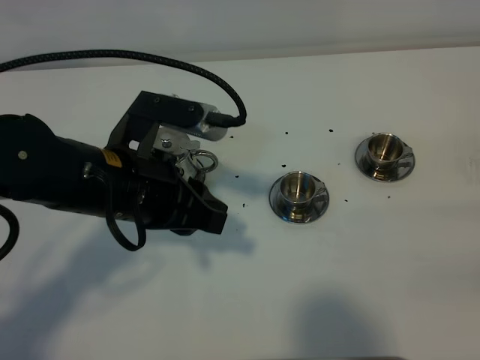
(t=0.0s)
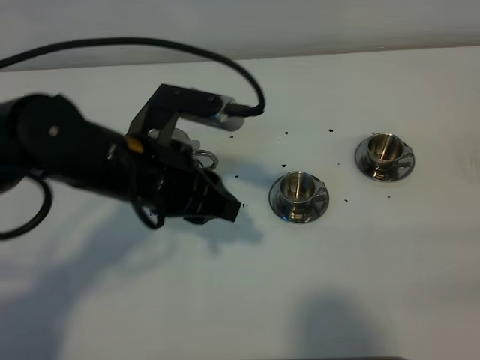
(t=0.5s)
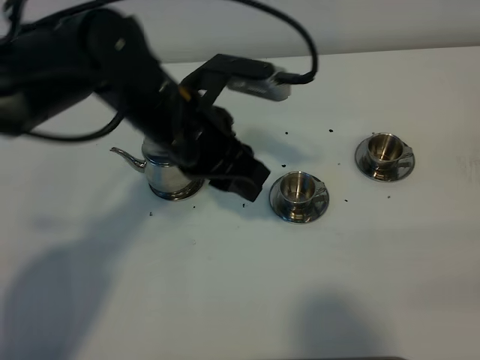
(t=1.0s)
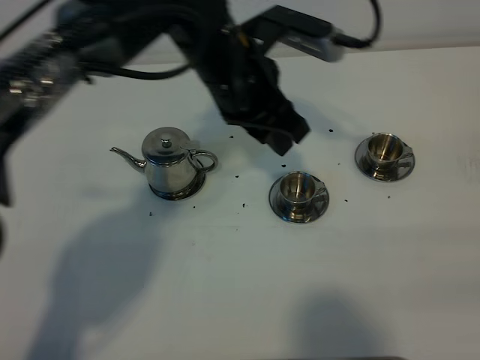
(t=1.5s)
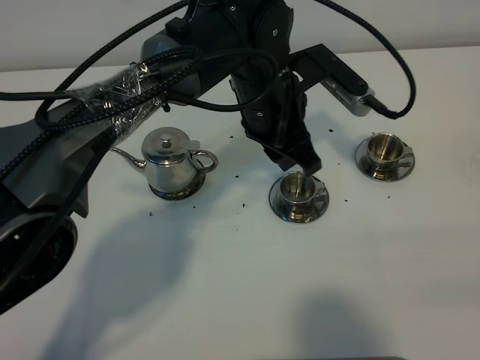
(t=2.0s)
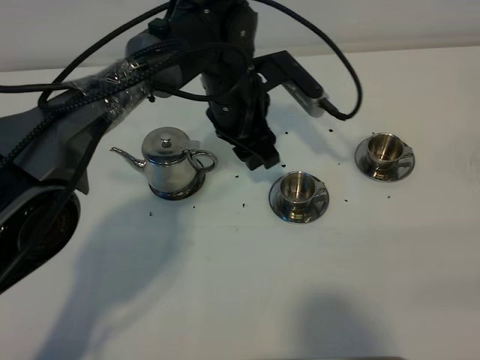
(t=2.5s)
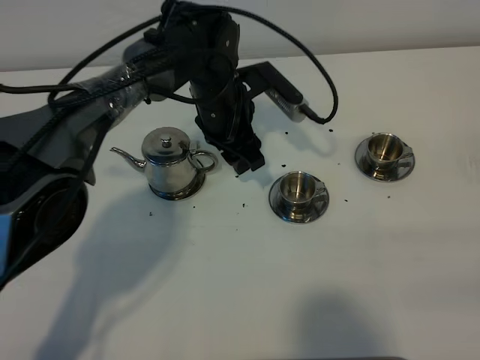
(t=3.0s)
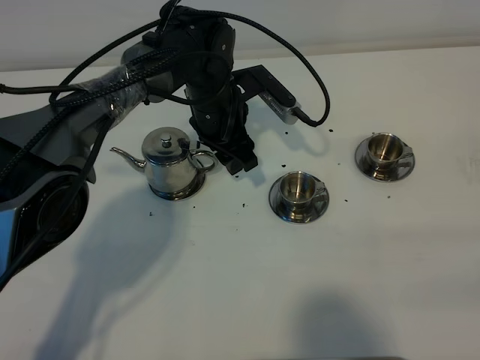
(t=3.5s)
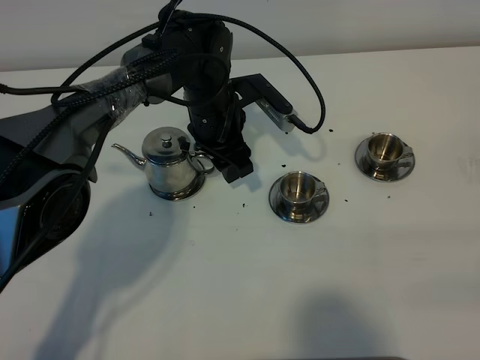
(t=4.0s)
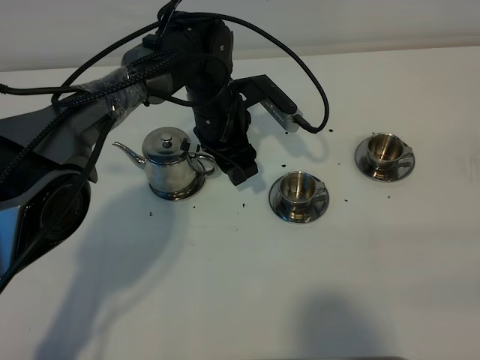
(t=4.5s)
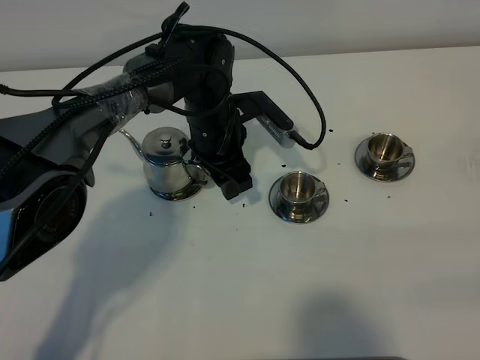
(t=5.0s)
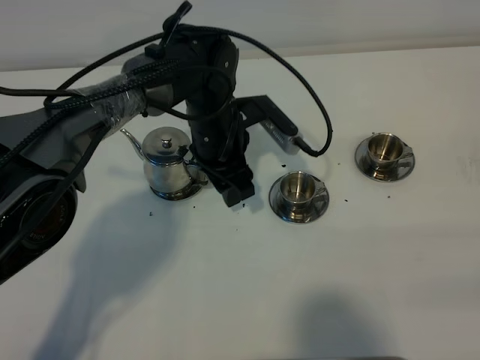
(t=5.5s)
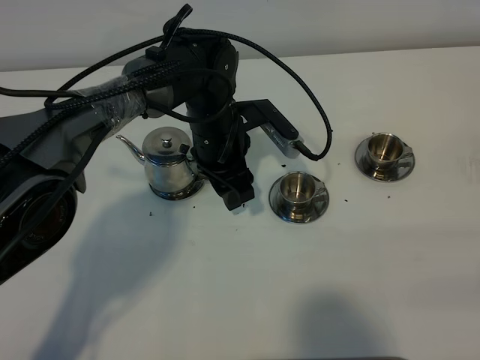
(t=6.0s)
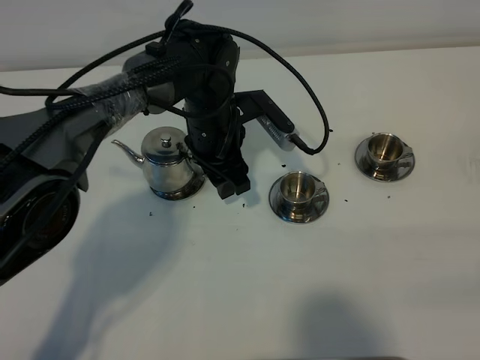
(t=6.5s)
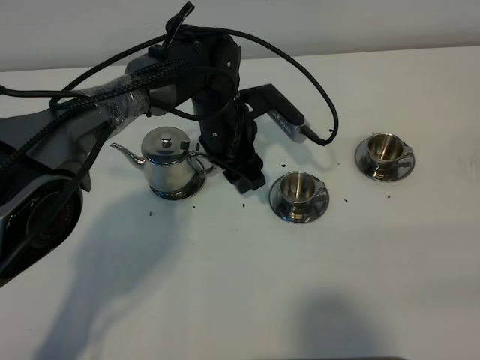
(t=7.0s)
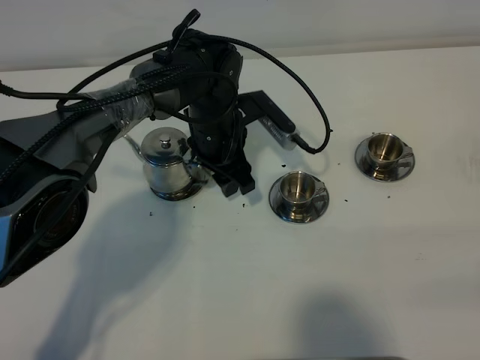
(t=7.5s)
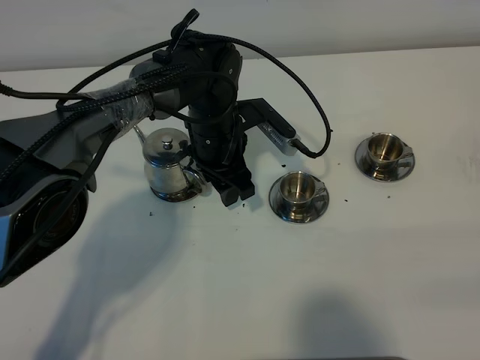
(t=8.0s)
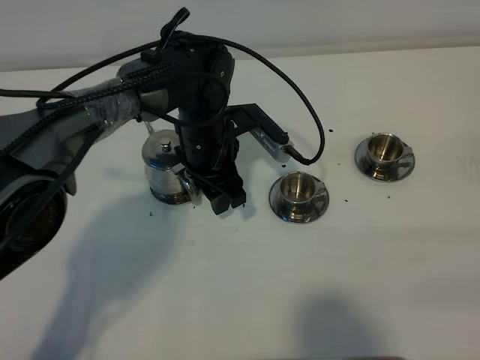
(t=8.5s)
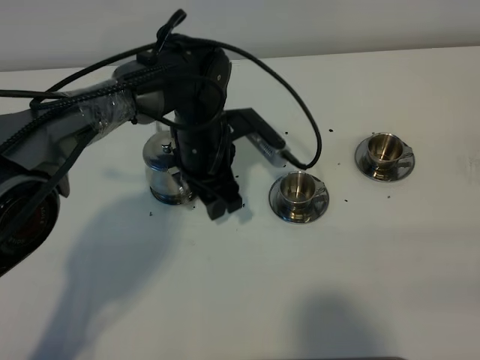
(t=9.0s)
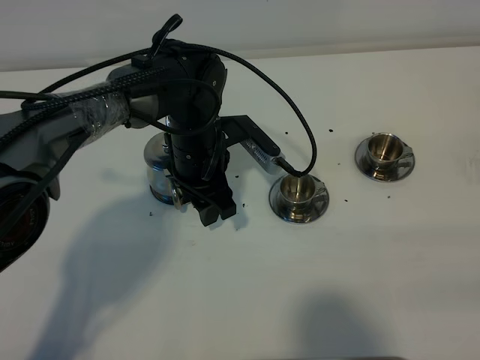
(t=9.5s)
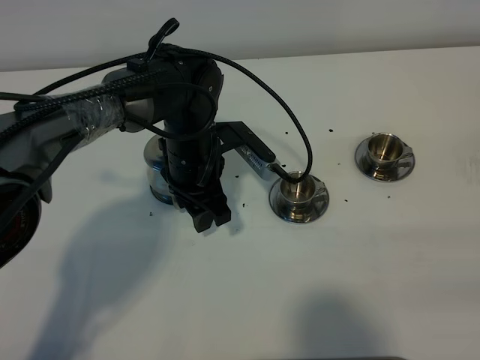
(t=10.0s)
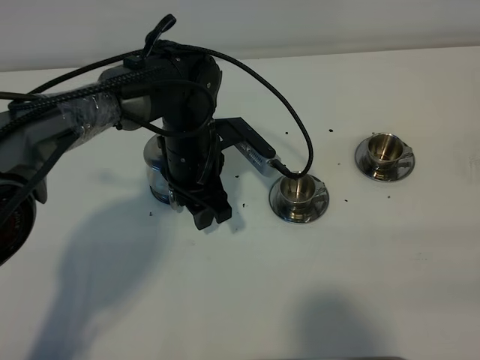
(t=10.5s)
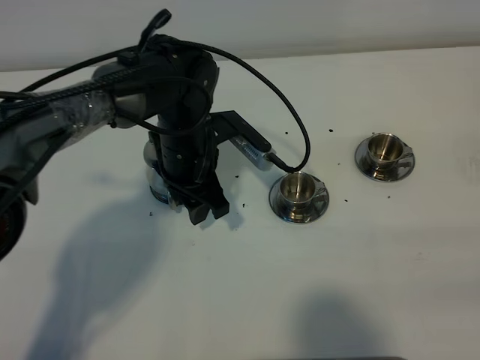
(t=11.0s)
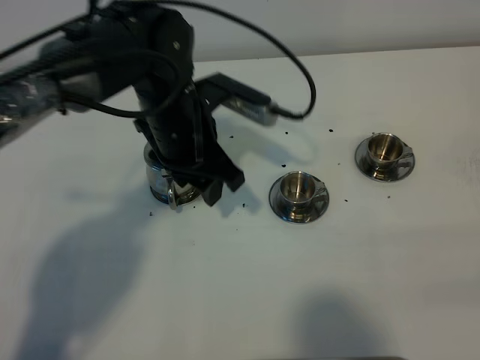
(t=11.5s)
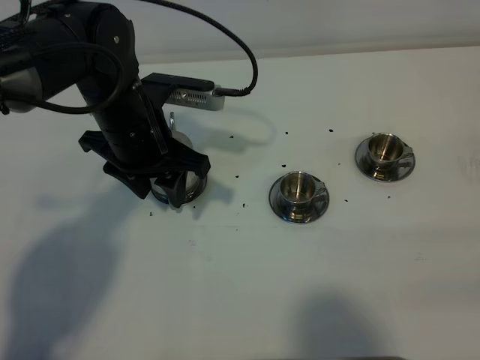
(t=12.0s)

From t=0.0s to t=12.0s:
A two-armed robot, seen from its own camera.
Task of the whole recording: grasp the stainless steel teapot and pour the tea into the two stainless steel teacups one by one, put the stainless steel teapot back in its original place.
From t=0.0s to t=2.0s: The left gripper goes about 20 cm to the right and forward.
From t=2.0s to t=4.0s: The left gripper moves downward, to the left and forward, approximately 10 cm, and opens its fingers.
From t=4.0s to t=8.0s: The grippers make only small movements.
From t=8.0s to t=10.0s: The grippers stay close to where they were, moving slightly.
From t=10.0s to t=12.0s: The left gripper travels upward and to the left by about 10 cm.

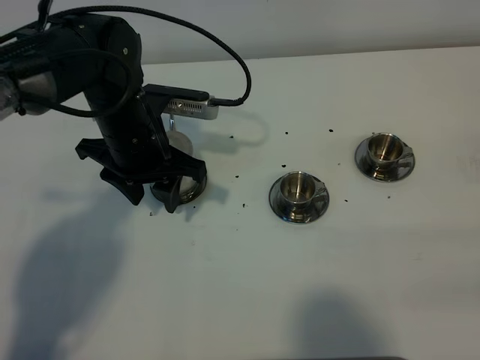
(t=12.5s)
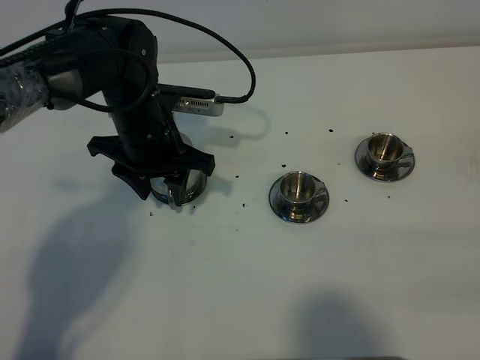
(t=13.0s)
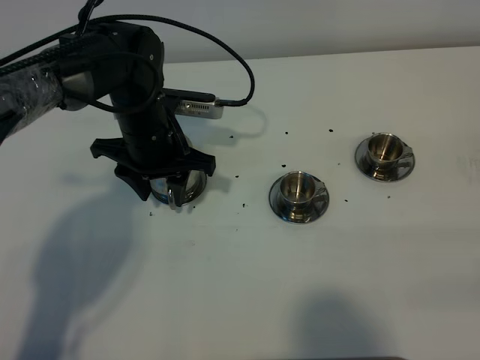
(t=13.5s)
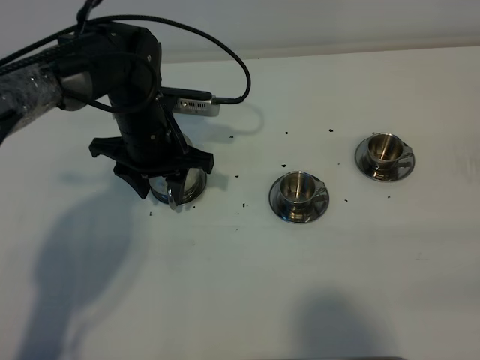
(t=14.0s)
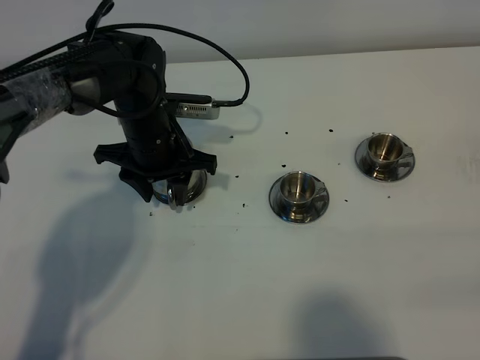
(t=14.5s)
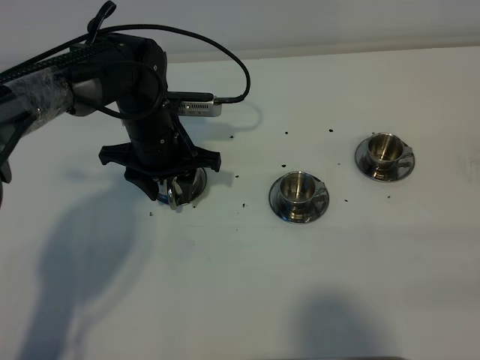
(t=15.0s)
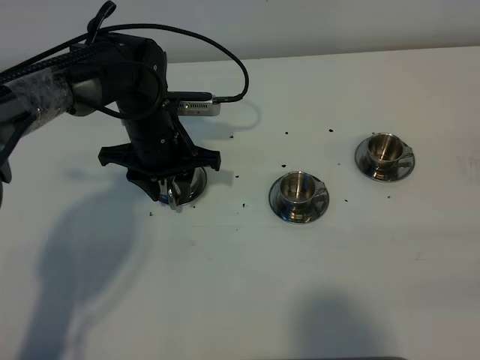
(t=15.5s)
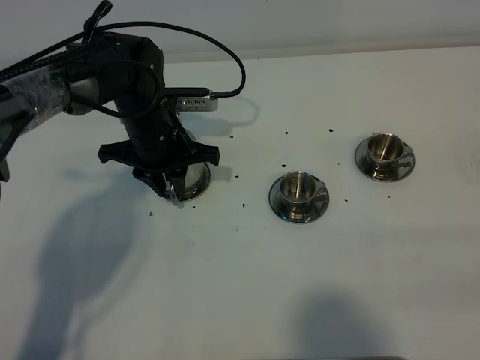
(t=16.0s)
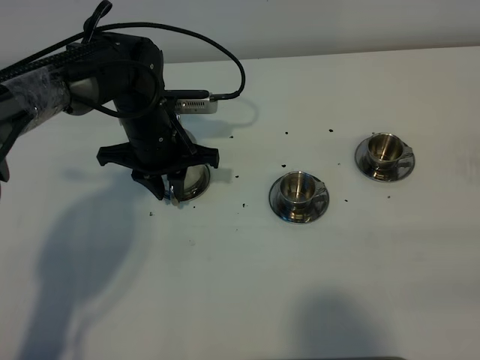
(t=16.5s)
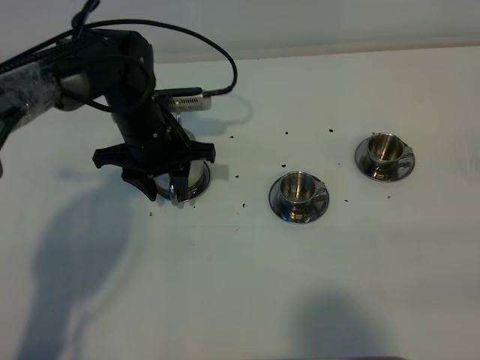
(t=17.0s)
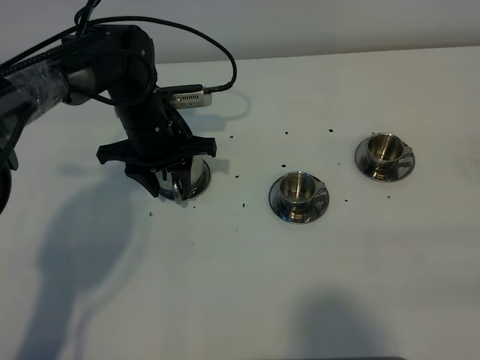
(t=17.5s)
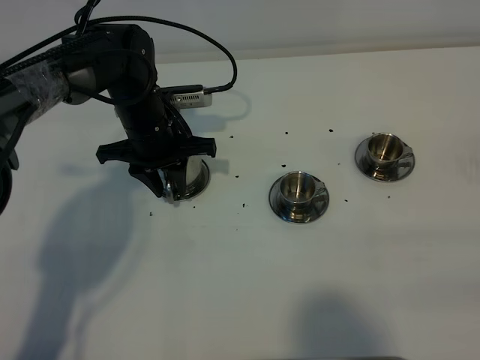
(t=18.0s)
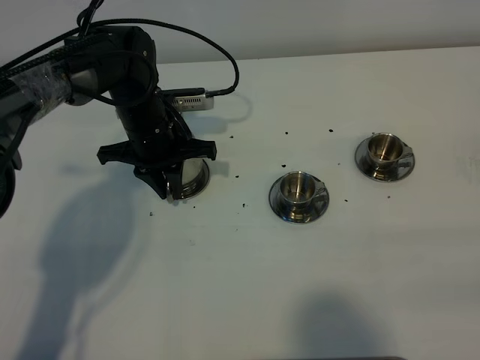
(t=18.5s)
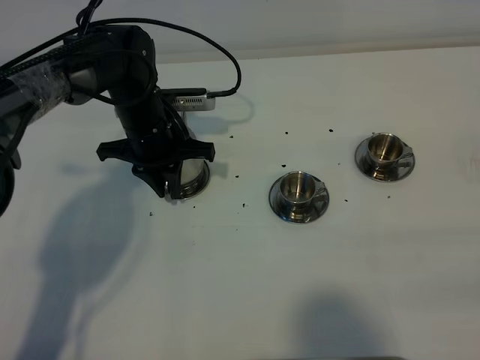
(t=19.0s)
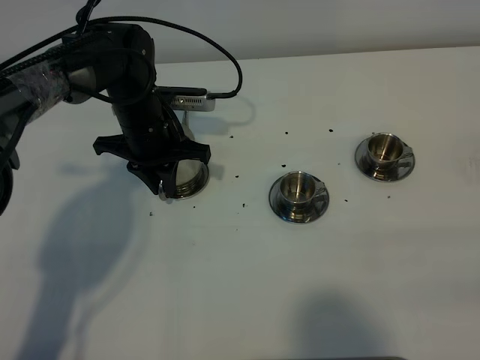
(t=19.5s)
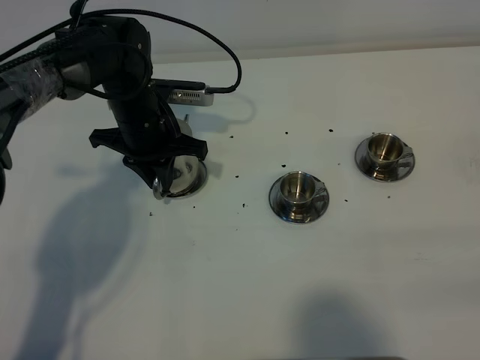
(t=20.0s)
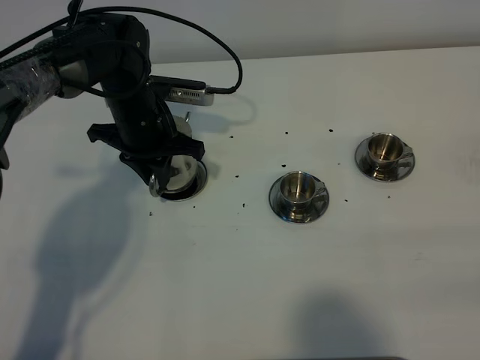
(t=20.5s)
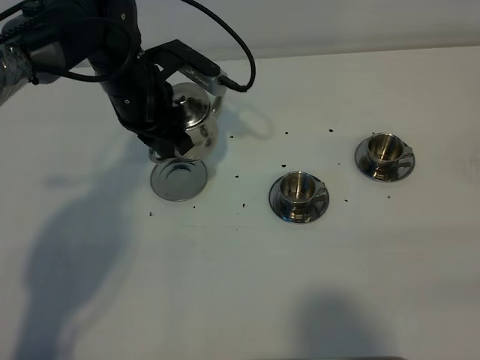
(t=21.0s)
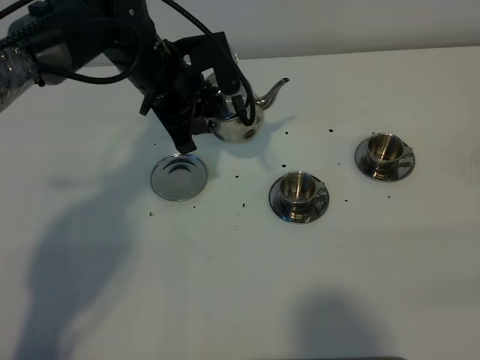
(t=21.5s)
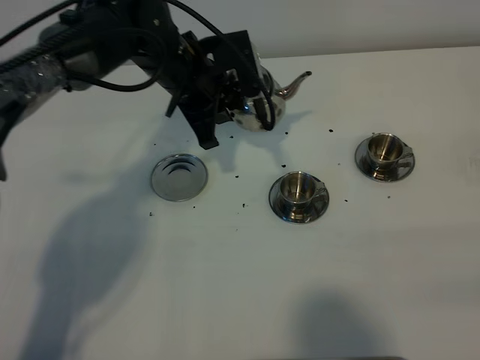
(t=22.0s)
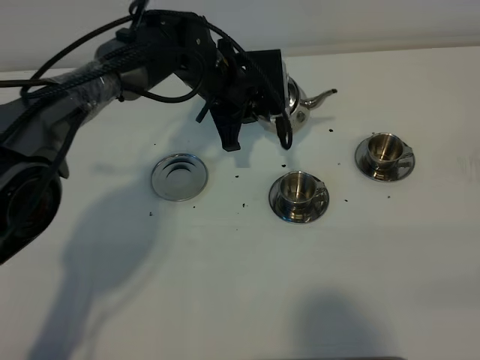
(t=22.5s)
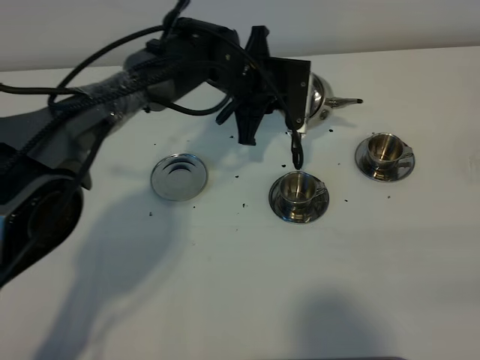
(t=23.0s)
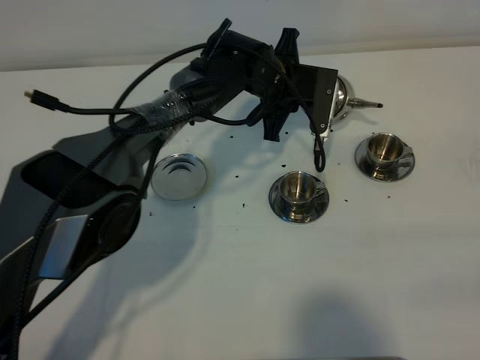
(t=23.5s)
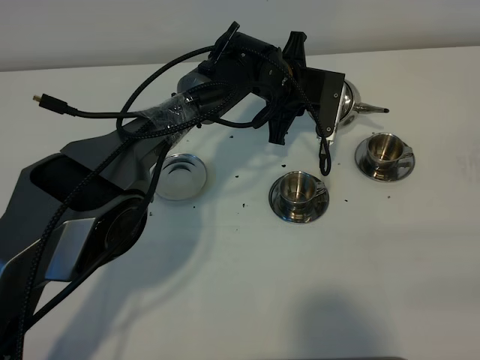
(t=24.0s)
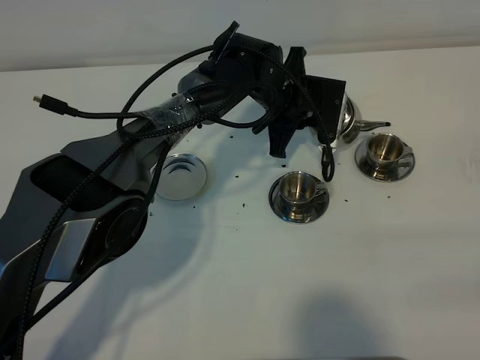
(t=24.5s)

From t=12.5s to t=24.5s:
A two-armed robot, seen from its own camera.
Task of the whole recording: grasp the stainless steel teapot and pour the tea into the two stainless steel teacups one by one, put the stainless steel teapot back in its original place.
Step, from t=12.5s to t=20.0s: Pick up the teapot with the left gripper.
From t=12.5s to t=14.5s: The left gripper shifts roughly 5 cm downward.
From t=14.5s to t=16.5s: The left gripper closes up.
From t=16.5s to t=18.5s: The left gripper opens and closes again.
From t=18.5s to t=20.5s: There are only small adjustments of the grippers.
From t=20.5s to t=22.5s: The left gripper heads to the right, covering some 10 cm.
From t=22.5s to t=24.5s: The left gripper travels to the right by some 10 cm.

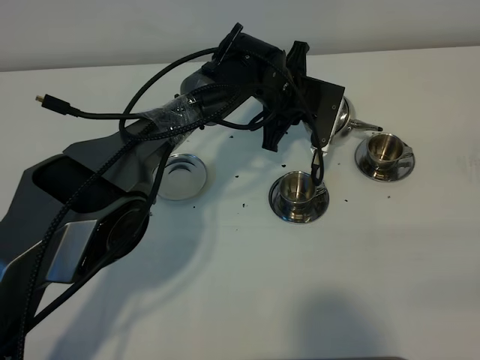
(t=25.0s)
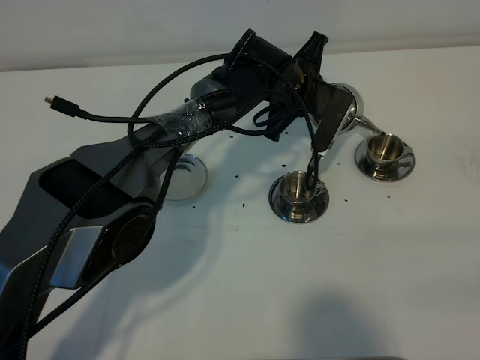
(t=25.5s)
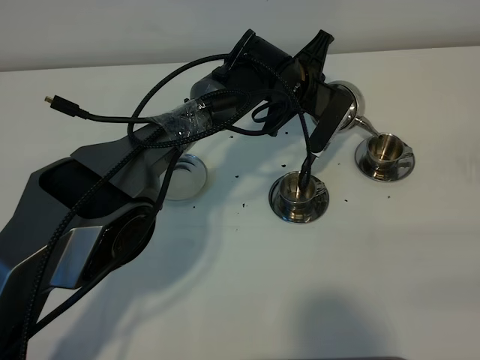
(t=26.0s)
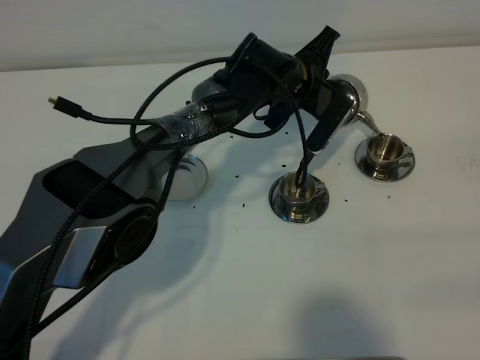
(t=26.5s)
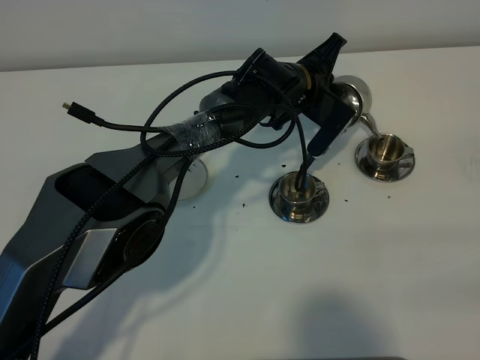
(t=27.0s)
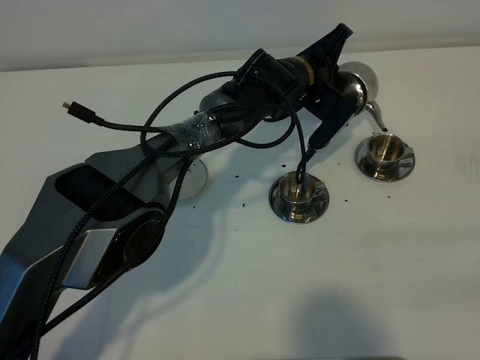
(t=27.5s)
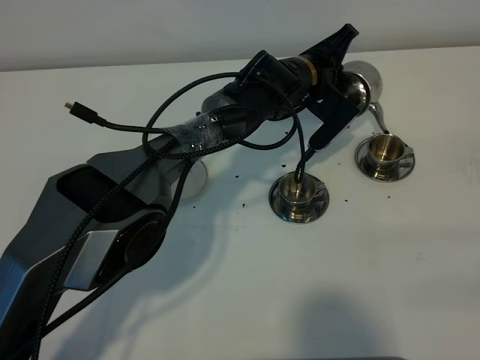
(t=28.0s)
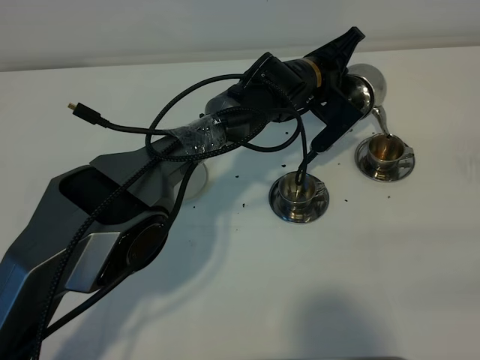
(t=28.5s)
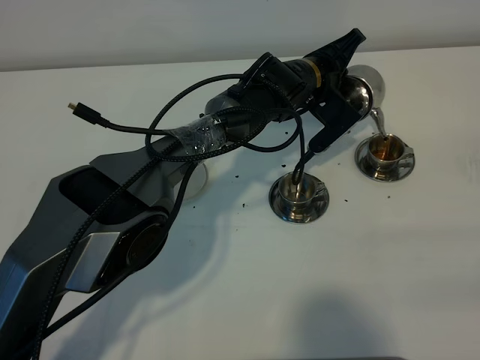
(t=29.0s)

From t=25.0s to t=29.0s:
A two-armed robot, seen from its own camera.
Task of the whole recording: grasp the stainless steel teapot and pour the tea into the two stainless steel teacups one by one, put the stainless steel teapot back in its original place.
From t=27.0s to t=29.0s: There are only small adjustments of the grippers.
